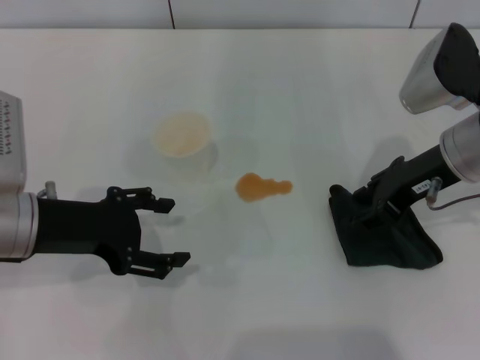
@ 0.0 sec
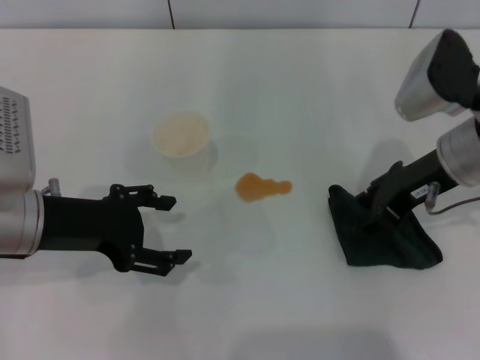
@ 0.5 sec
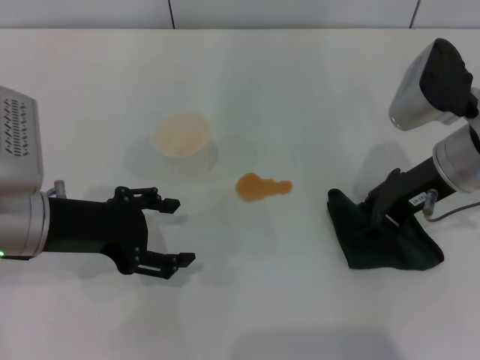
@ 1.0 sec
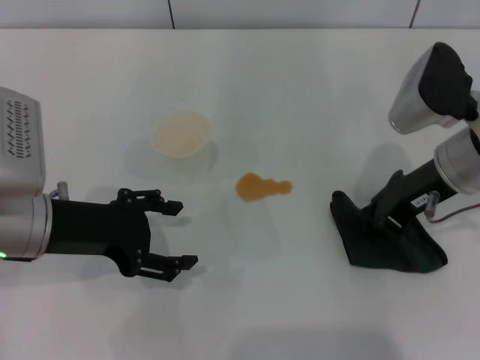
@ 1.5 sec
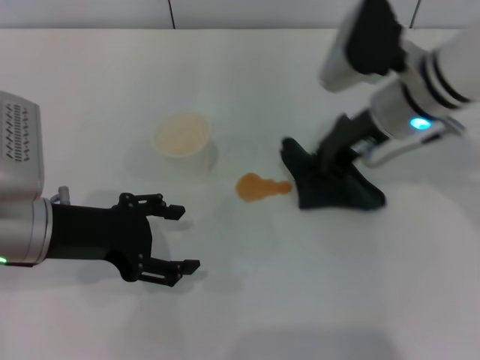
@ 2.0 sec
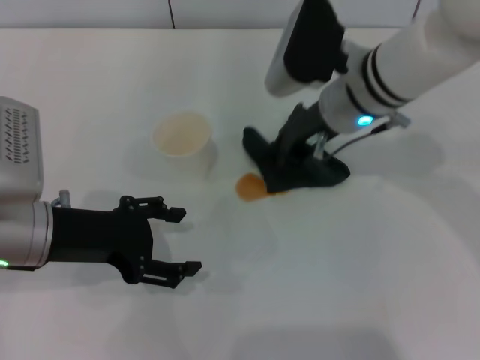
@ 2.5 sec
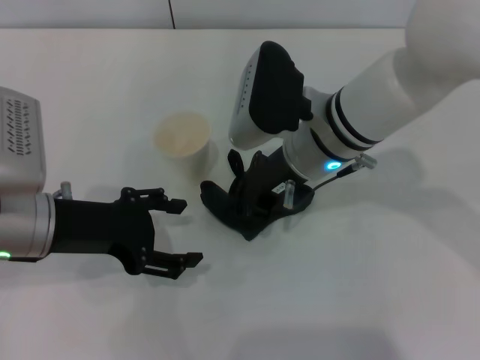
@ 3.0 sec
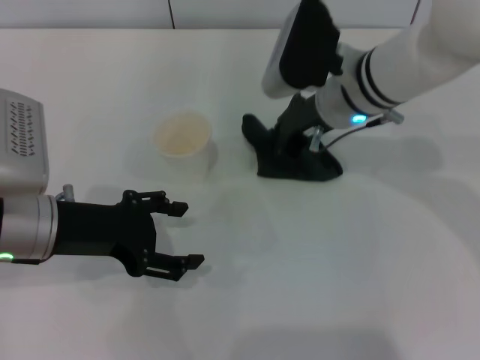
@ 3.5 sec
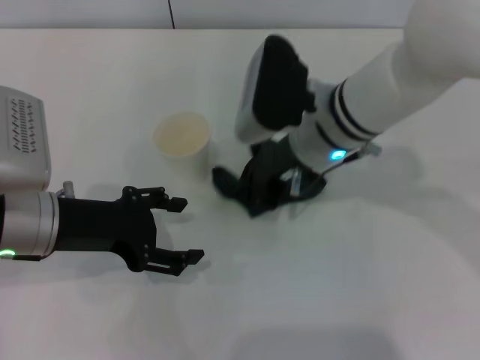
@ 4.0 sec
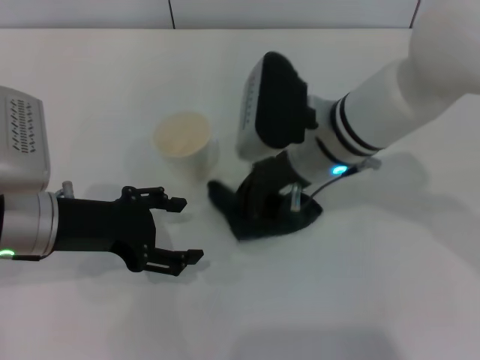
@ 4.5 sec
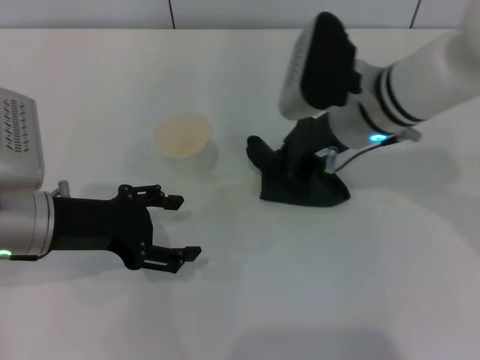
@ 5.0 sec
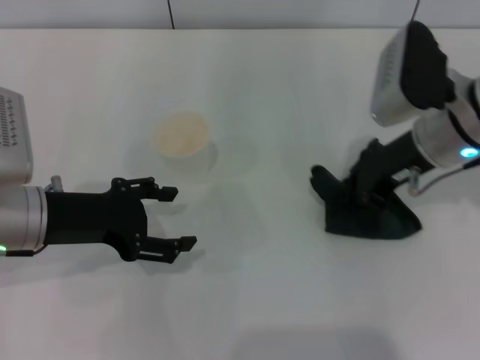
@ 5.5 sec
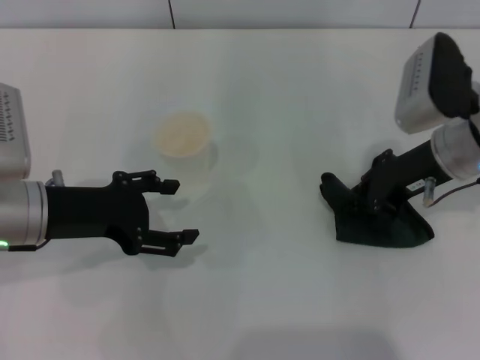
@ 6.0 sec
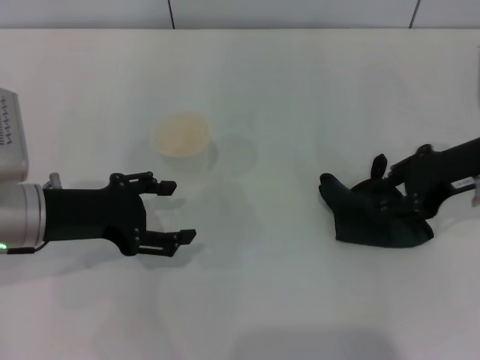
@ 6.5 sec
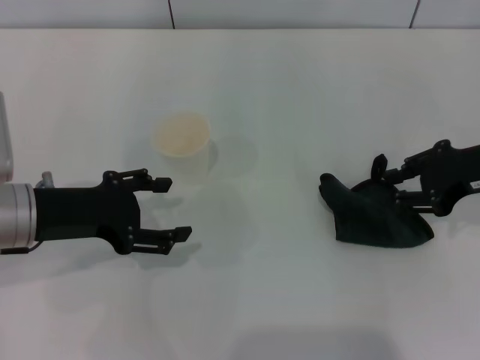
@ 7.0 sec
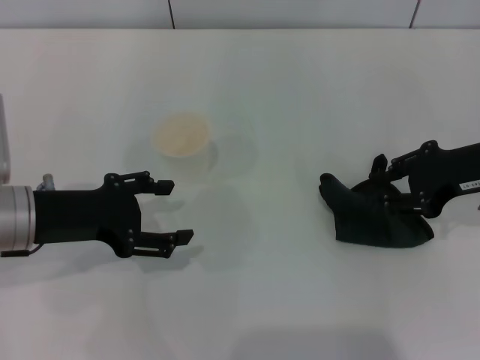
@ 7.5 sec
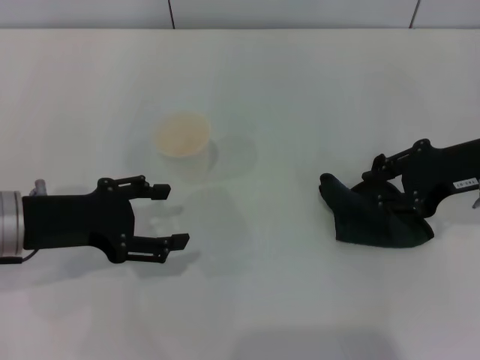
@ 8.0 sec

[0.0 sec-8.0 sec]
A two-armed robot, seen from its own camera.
Step, 1.5 sec to 6.0 sec: Wipe the stains off the table with the right gripper.
Step, 6.5 sec to 7.0 sec: Place the rag on the table with the right gripper.
0.0 sec to 2.0 sec: The right gripper goes approximately 5 cm to the left, and closes.
2.0 sec to 4.0 sec: The right gripper shifts about 10 cm to the left.
4.0 sec to 6.0 sec: The right gripper heads to the right, covering roughly 15 cm.
6.0 sec to 8.0 sec: The right gripper goes approximately 5 cm to the right, and opens.

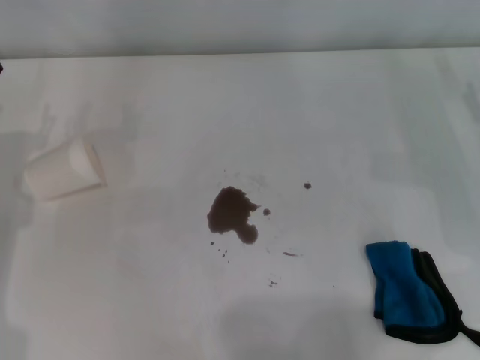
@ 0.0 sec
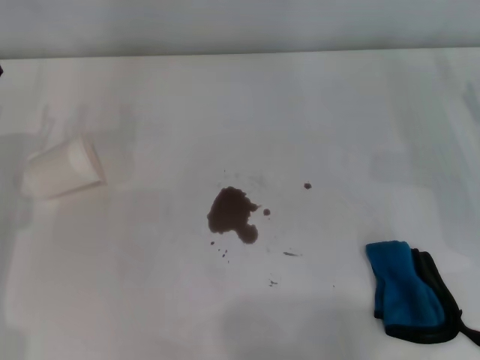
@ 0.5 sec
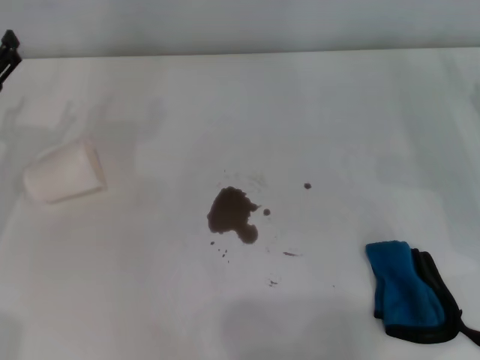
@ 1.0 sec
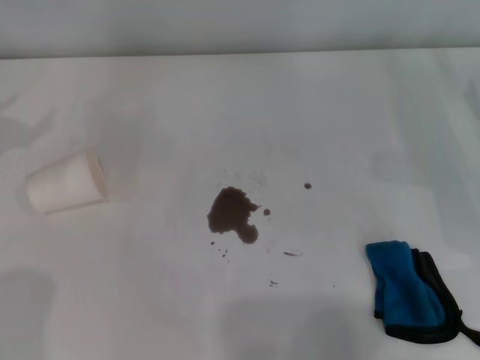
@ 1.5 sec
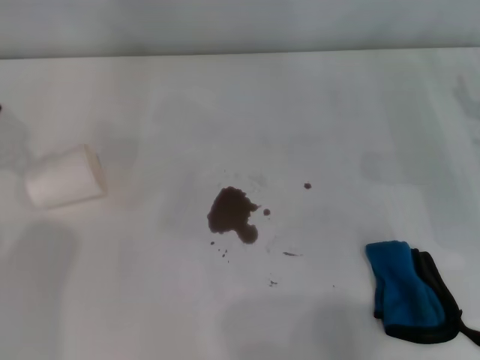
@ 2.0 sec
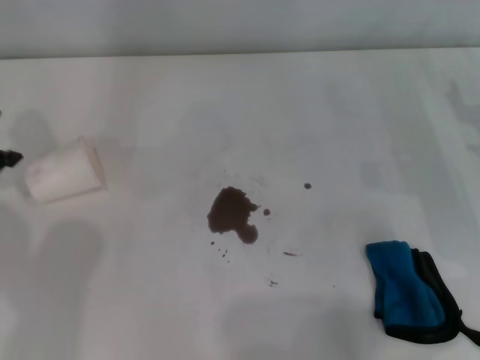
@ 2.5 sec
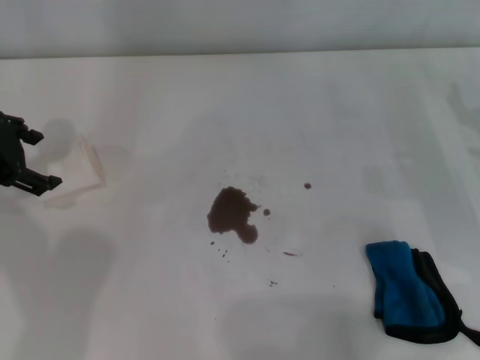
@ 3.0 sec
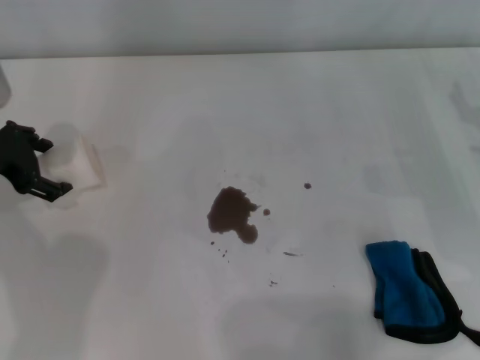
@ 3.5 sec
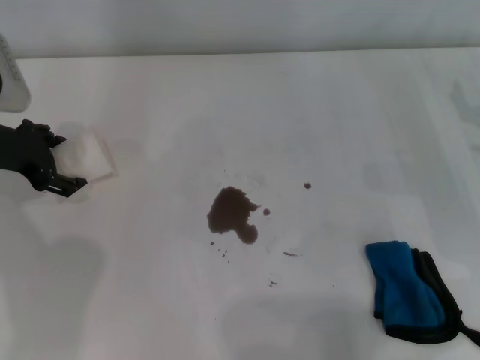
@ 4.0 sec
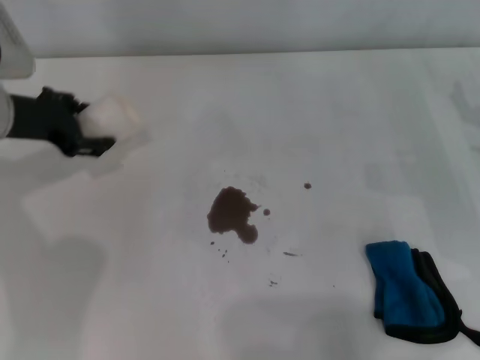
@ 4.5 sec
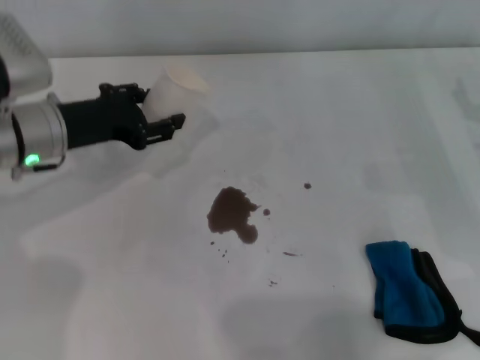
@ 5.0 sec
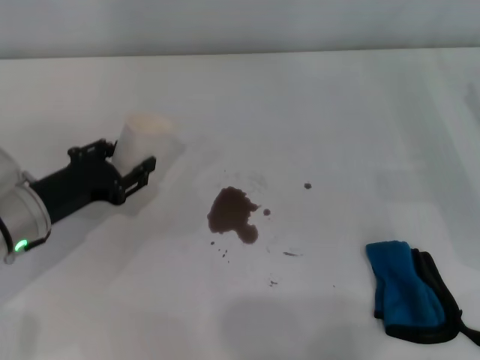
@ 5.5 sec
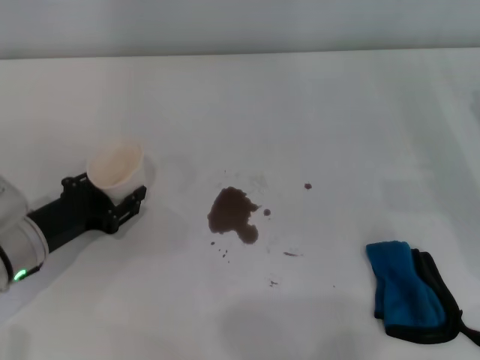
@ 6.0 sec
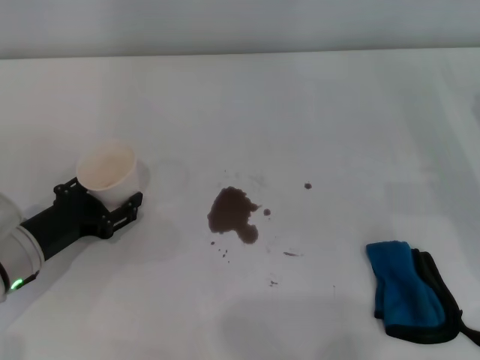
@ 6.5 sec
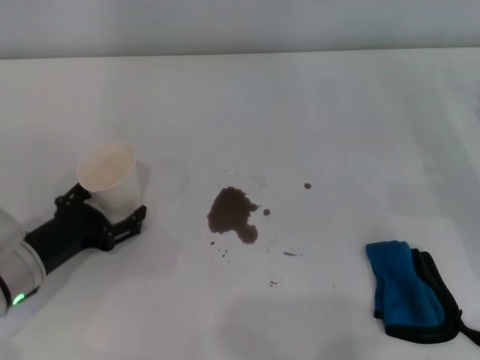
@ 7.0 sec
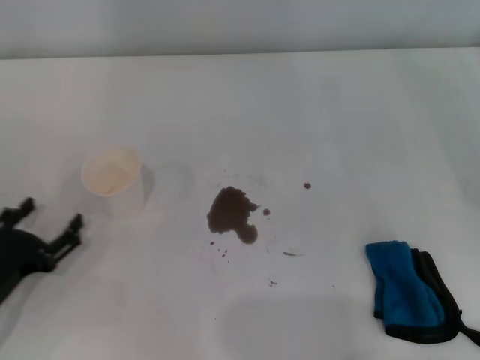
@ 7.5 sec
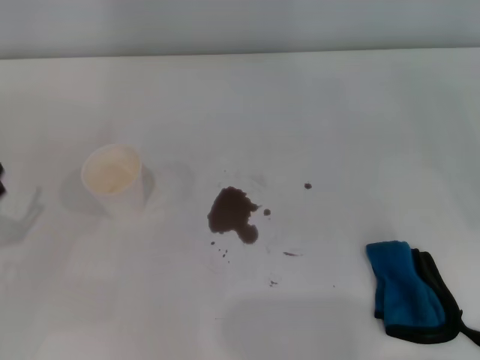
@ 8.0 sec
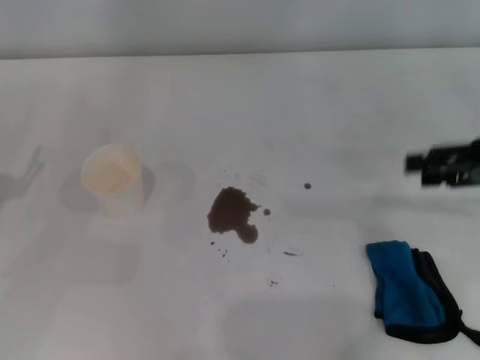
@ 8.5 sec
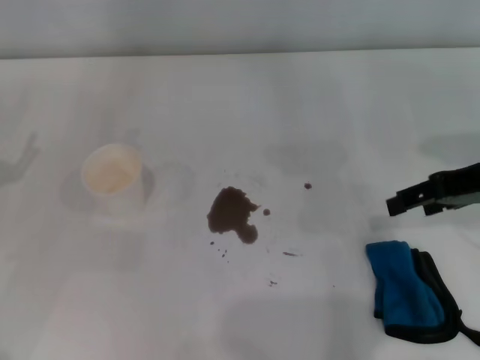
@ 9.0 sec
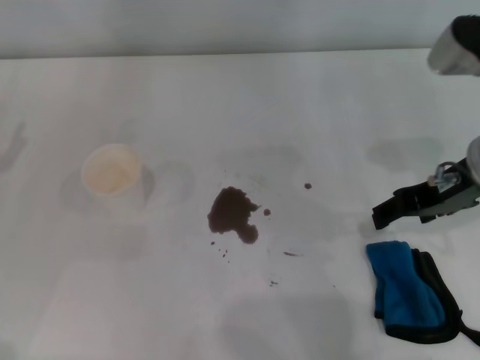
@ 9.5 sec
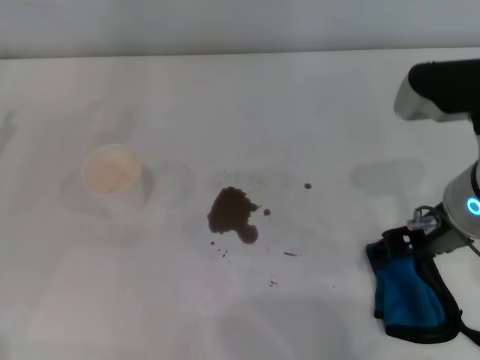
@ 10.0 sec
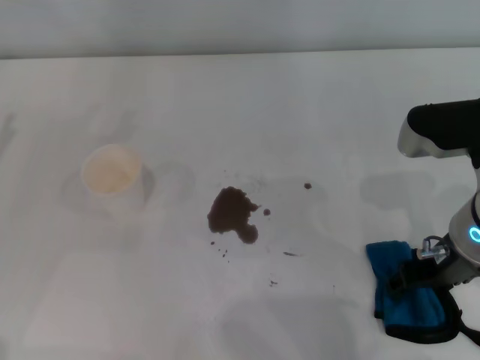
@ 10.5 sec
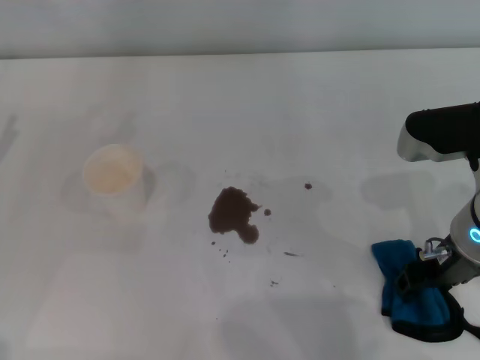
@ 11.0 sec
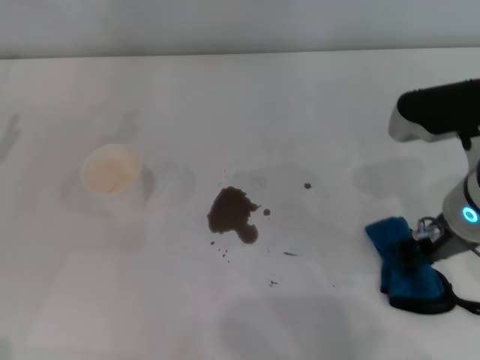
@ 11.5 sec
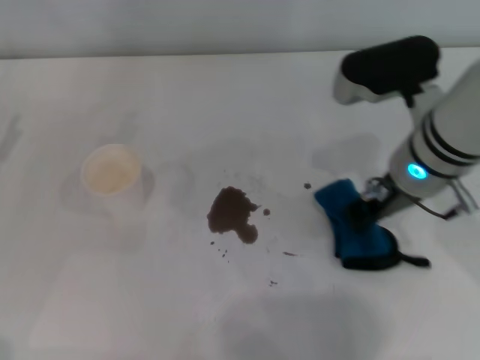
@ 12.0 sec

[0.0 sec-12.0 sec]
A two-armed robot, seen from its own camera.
Step, 0.0 sec to 4.0 sec: Grasp the paper cup with the left gripper.
Step, 4.5 sec to 6.5 sec: Stand the paper cup upright with the left gripper.
Step, 7.0 sec to 10.5 sec: Grasp the rag with the right gripper.
2.0 sec to 4.0 sec: The left gripper is displaced downward and to the right by approximately 15 cm.
4.0 sec to 6.0 sec: The left gripper travels downward and backward by roughly 15 cm, and closes up.
6.0 sec to 8.0 sec: The left gripper moves to the left and backward, roughly 10 cm, and opens its fingers.
8.0 sec to 10.0 sec: The right gripper heads to the left, covering about 25 cm.
10.0 sec to 12.0 sec: The right gripper heads forward, covering approximately 5 cm, and closes up.

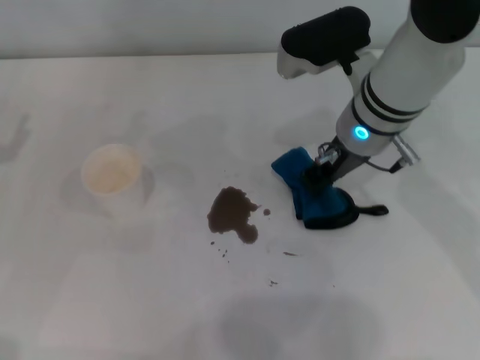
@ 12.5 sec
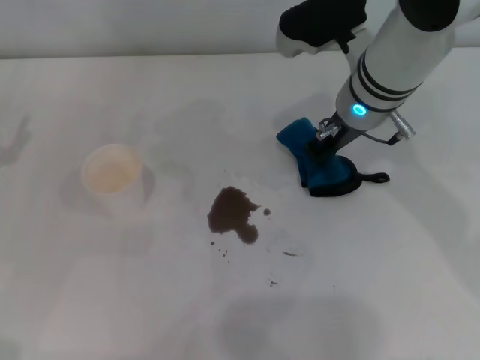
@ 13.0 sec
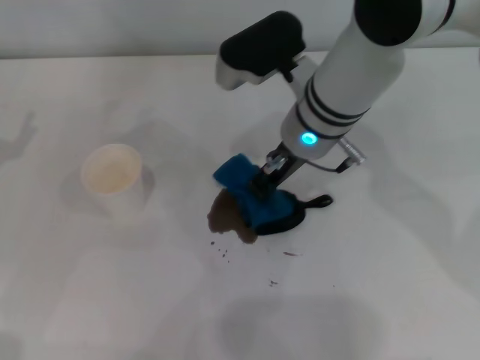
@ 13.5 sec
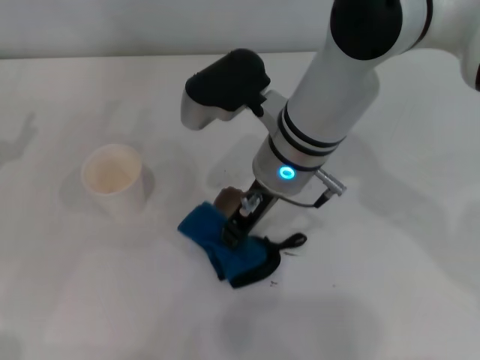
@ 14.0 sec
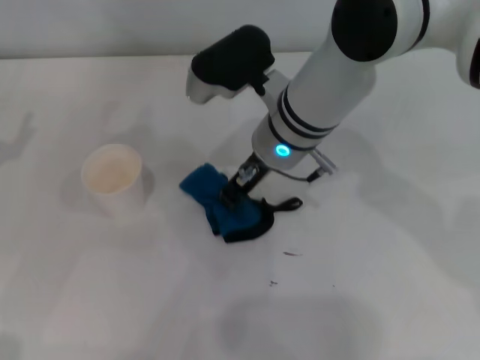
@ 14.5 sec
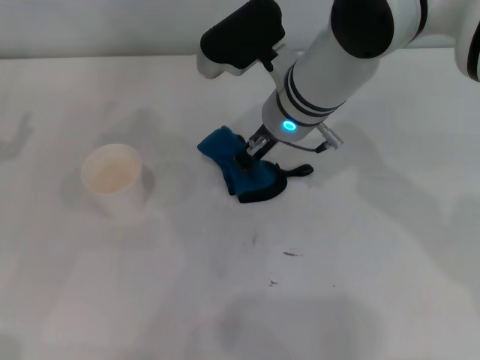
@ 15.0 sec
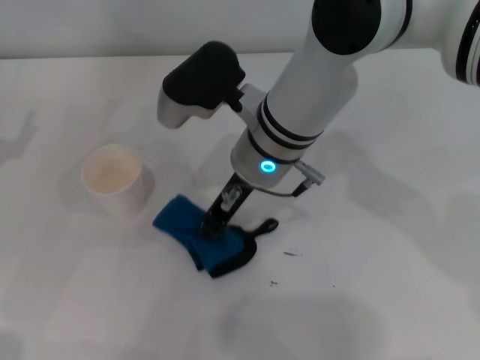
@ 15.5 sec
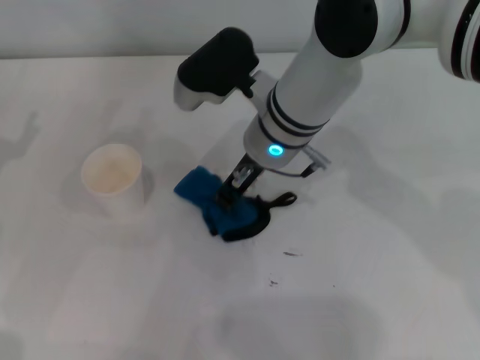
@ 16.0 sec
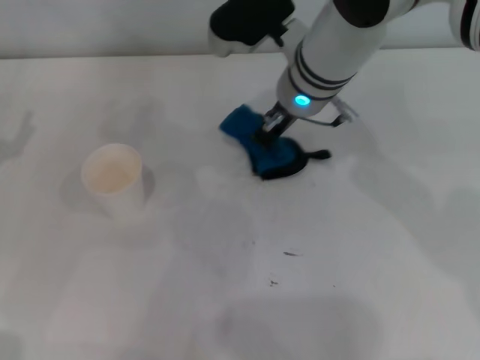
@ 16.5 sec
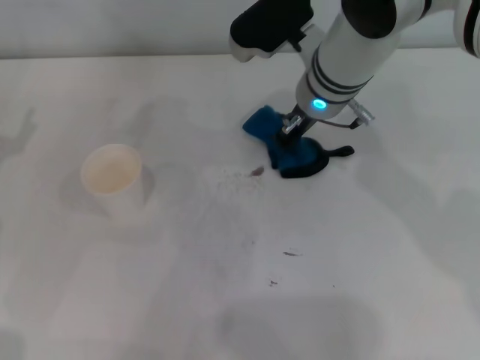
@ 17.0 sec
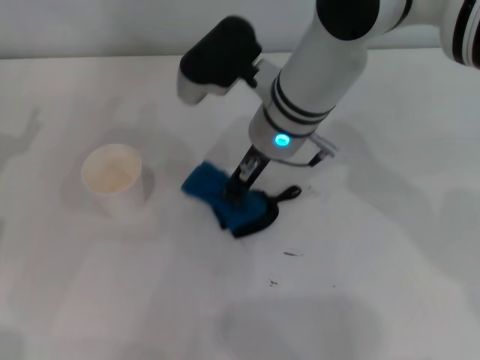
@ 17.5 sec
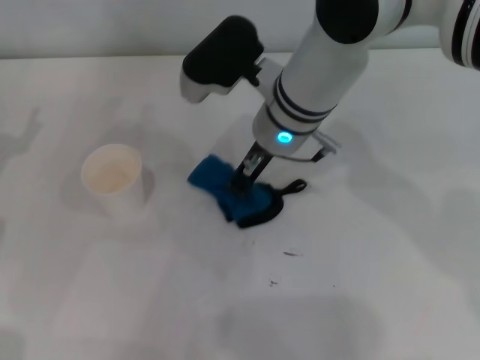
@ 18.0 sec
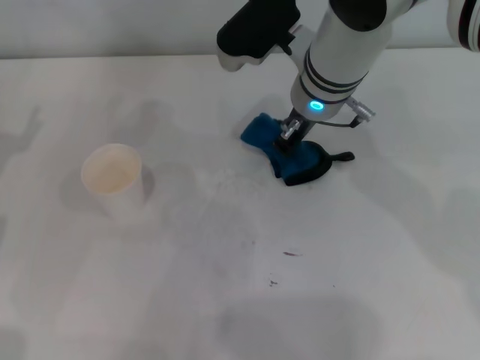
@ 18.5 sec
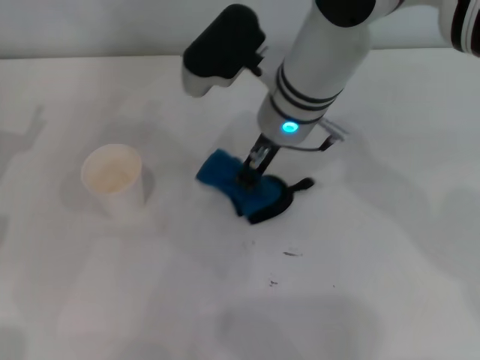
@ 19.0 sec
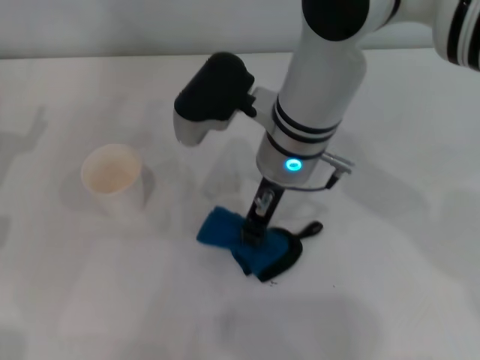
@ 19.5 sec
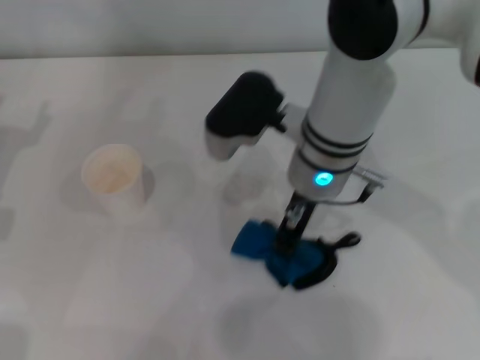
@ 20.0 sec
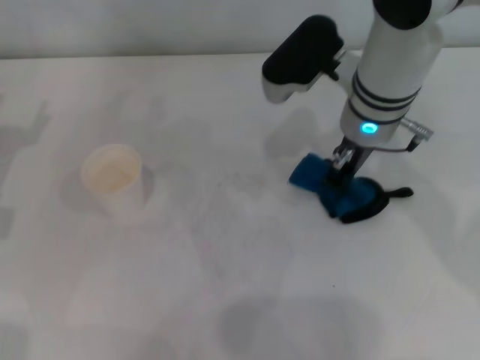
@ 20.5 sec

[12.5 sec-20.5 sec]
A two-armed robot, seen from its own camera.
12.5 sec to 14.5 sec: The right gripper moves to the left, about 5 cm.
14.5 sec to 16.5 sec: The right gripper changes place by some 5 cm.
